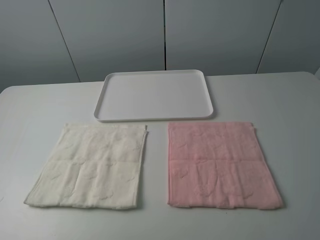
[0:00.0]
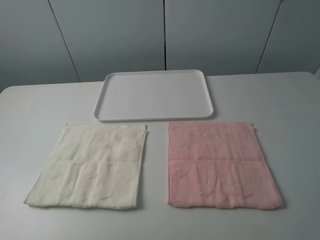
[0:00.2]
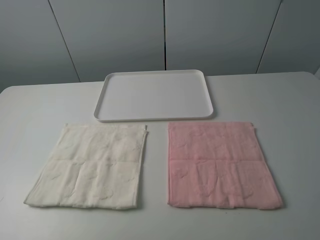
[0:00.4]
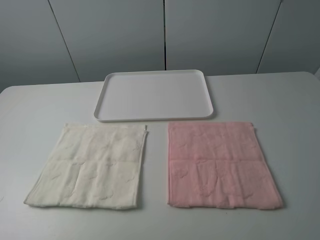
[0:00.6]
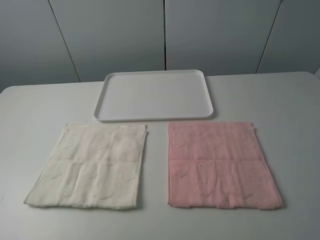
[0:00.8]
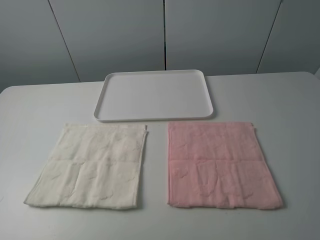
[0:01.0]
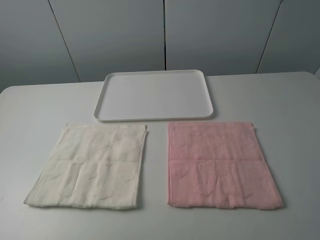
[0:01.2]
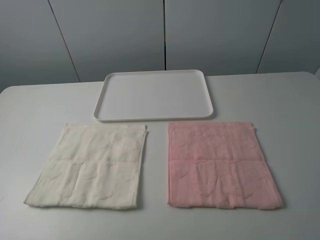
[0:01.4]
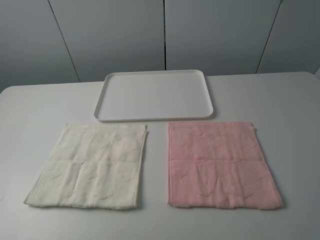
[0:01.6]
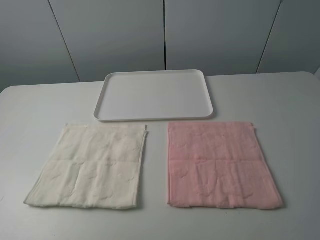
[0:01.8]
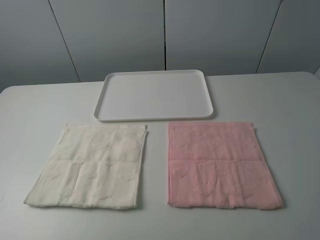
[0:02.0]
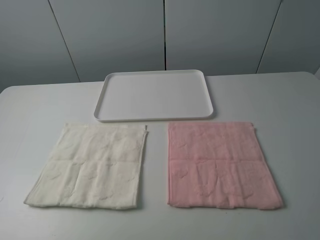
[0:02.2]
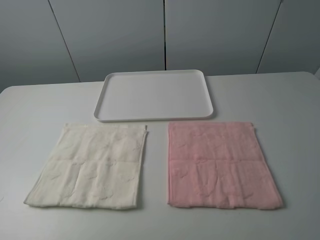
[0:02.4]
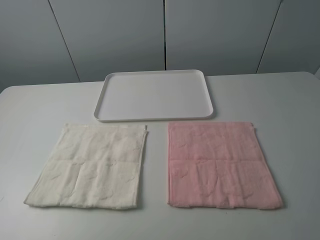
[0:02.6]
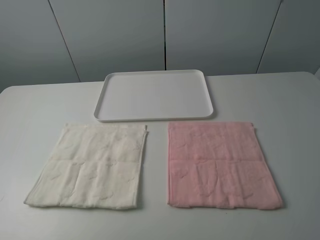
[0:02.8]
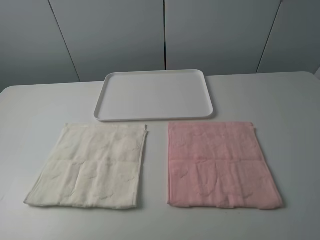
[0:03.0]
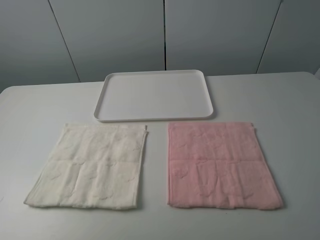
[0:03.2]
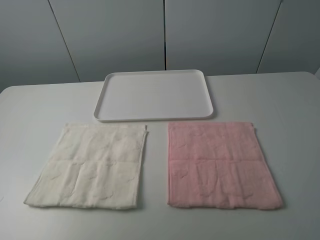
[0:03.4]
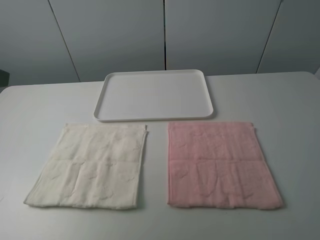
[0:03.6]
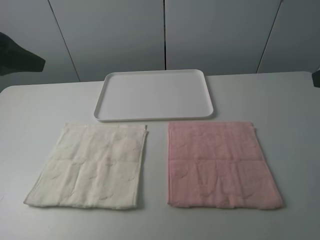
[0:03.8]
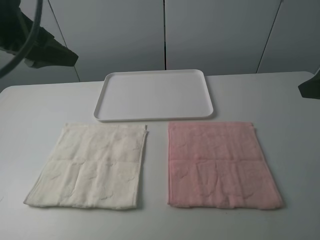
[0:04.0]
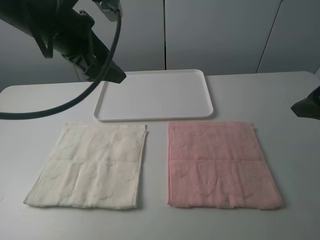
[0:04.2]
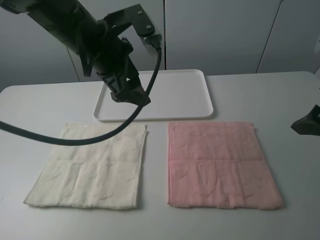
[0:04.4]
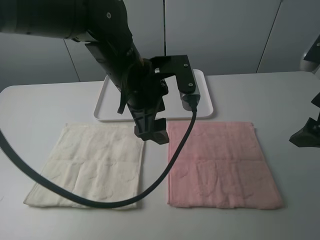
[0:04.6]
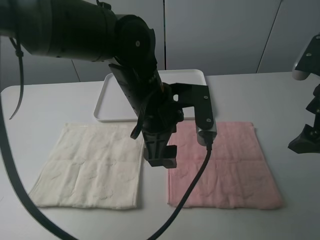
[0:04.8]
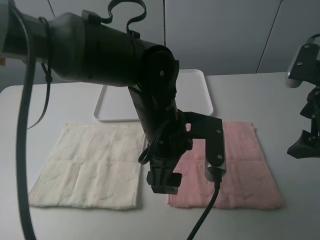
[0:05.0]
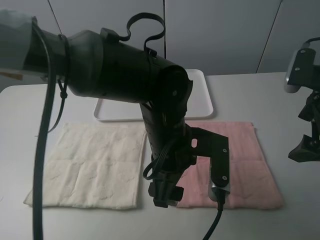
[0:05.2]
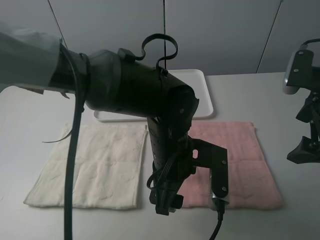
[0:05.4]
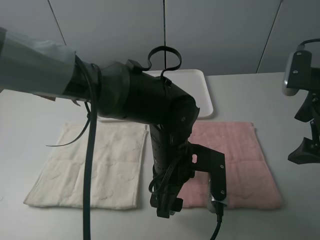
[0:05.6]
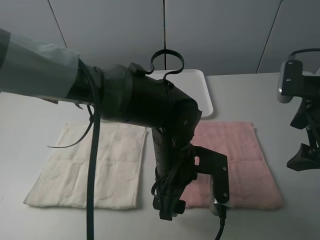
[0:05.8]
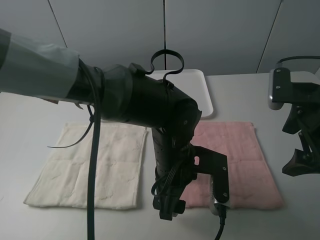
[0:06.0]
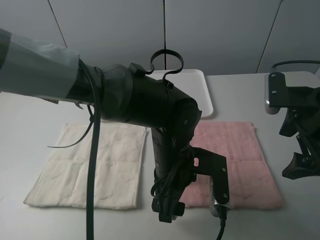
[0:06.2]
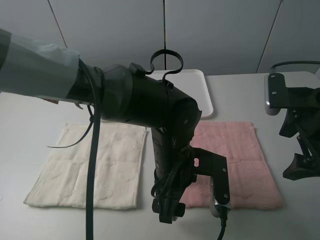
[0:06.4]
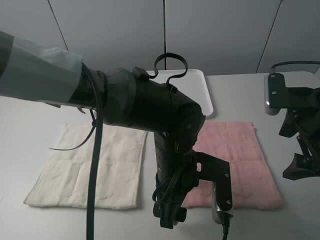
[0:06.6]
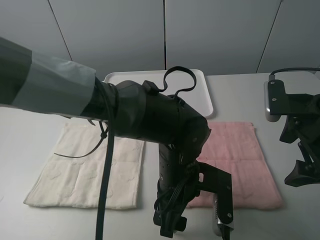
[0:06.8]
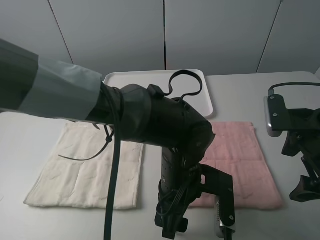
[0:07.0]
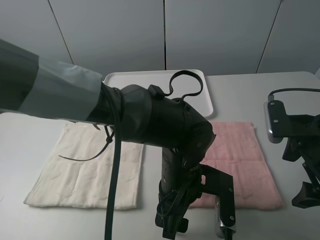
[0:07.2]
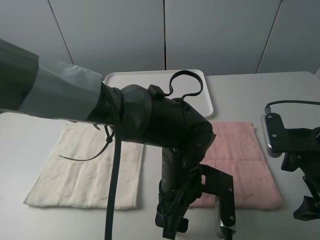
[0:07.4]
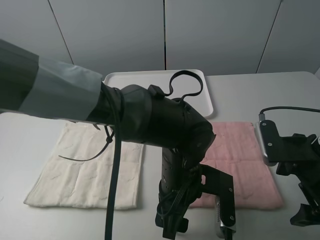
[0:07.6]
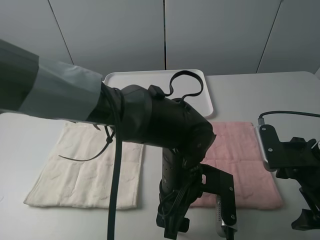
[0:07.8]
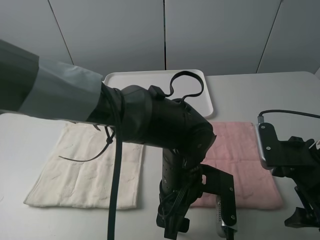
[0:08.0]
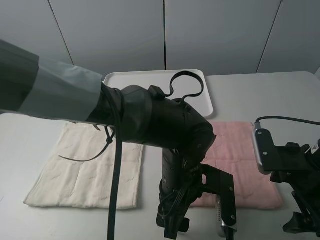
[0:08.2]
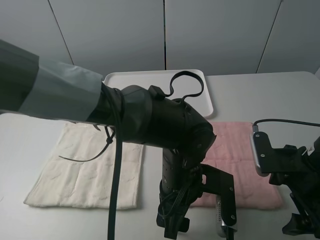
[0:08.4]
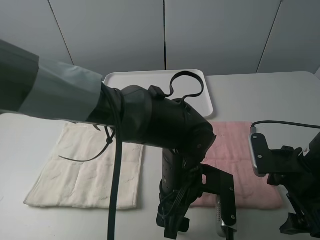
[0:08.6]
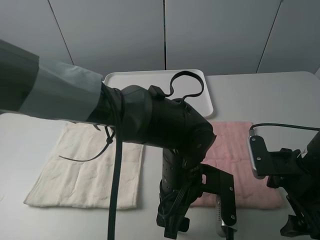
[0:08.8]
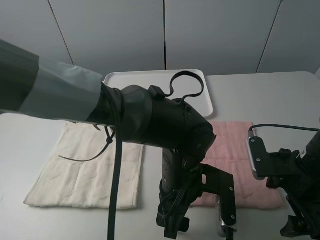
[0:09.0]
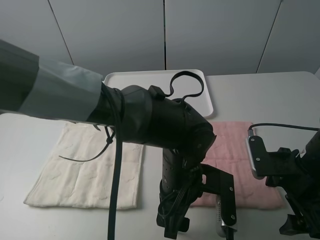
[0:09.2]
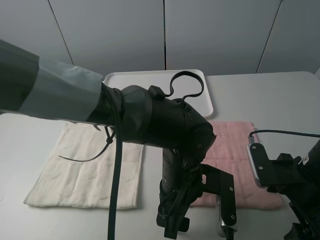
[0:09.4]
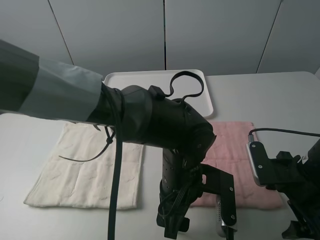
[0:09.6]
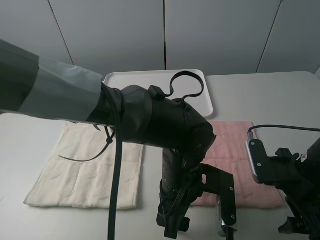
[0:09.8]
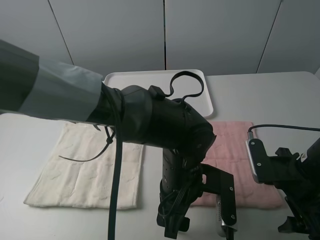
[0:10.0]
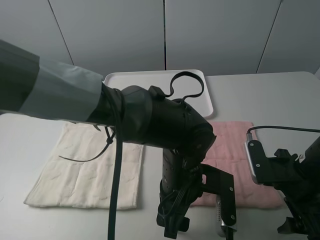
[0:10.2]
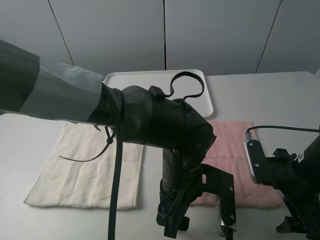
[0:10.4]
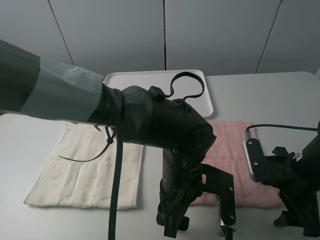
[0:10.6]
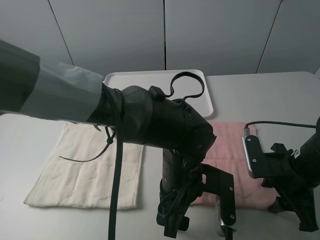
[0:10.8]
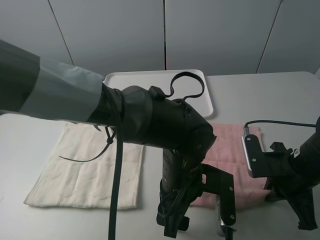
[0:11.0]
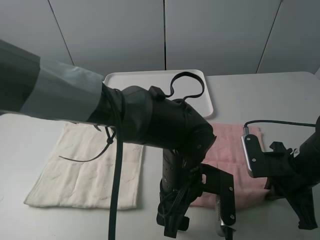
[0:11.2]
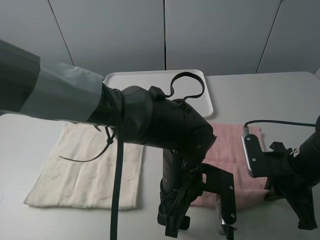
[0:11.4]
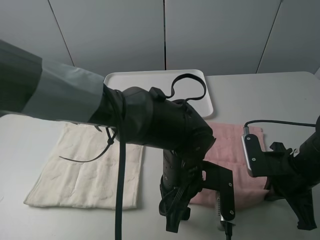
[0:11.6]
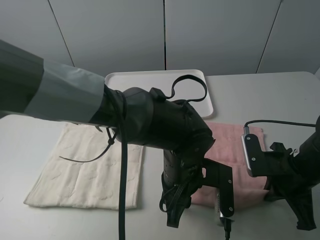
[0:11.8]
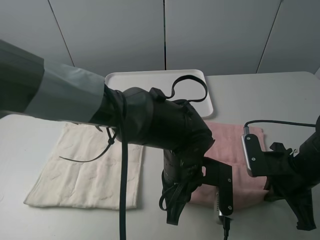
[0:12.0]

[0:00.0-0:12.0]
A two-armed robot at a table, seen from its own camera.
Task of the whole recording: fold one of the towels by two grippers and place it on the tray,then fold another towel by two grippers and place it on the folded towel.
Step, 0.0 to 12.0 s: Grasp the pink towel with the left gripper.
0.0 to 1.6 s: Both grippers stay about where they are.
3.0 to 4.4 s: The right gripper goes roughly 20 cm forward. Meanwhile the left gripper heads forward and to the right, covering approximately 35 cm.
4.4 to 6.0 s: The left gripper heads downward, to the right and backward, covering approximately 20 cm; the right gripper moves downward, approximately 5 cm.
6.0 to 7.6 s: The right gripper travels downward by about 5 cm.
7.6 to 10.4 s: There are only small adjustments of the grippers.
10.4 to 12.0 s: The right gripper closes its fingers; the left gripper closes.

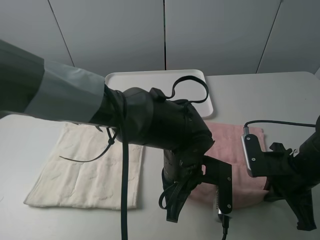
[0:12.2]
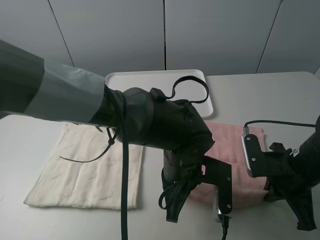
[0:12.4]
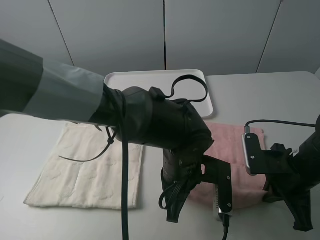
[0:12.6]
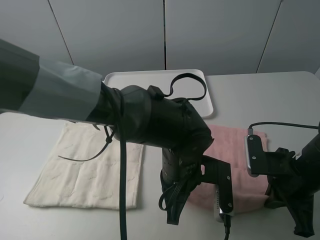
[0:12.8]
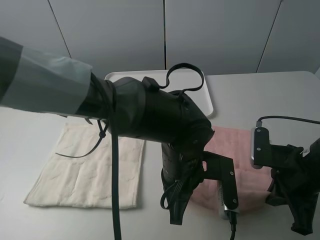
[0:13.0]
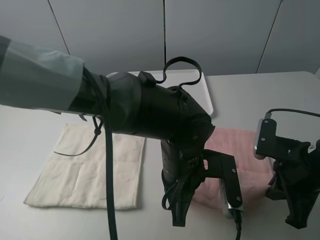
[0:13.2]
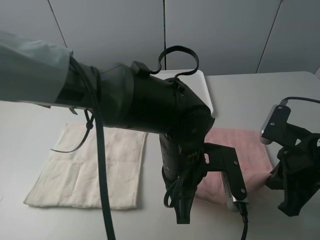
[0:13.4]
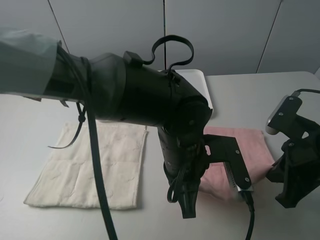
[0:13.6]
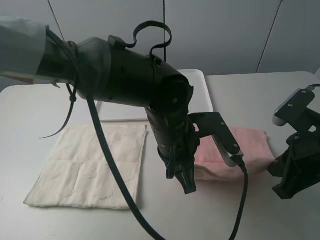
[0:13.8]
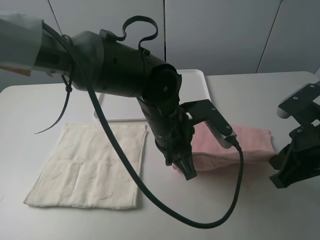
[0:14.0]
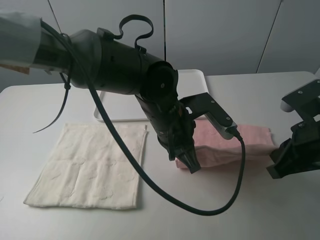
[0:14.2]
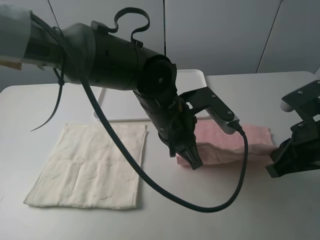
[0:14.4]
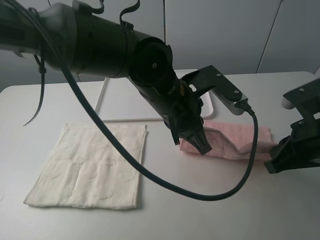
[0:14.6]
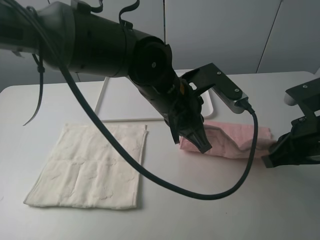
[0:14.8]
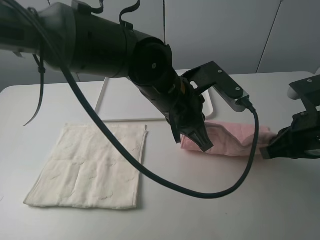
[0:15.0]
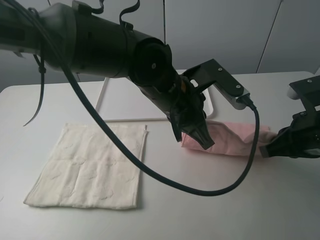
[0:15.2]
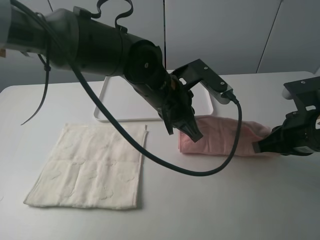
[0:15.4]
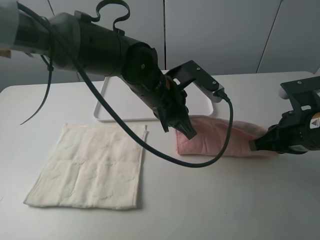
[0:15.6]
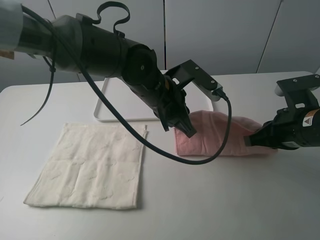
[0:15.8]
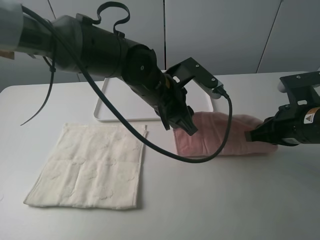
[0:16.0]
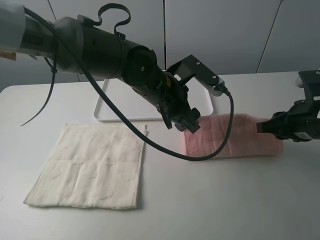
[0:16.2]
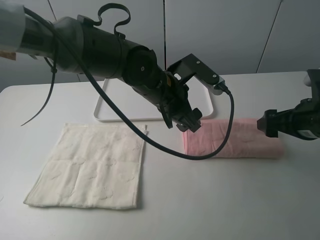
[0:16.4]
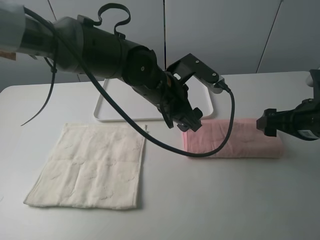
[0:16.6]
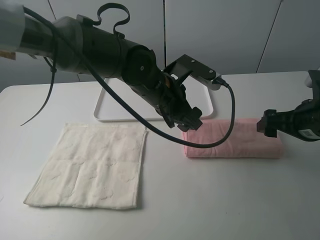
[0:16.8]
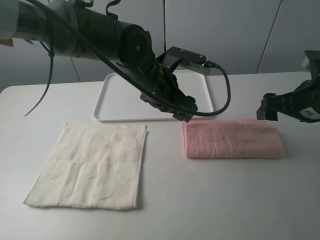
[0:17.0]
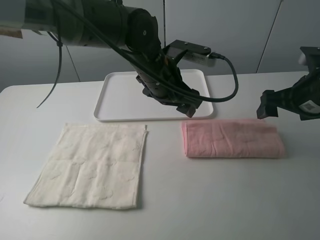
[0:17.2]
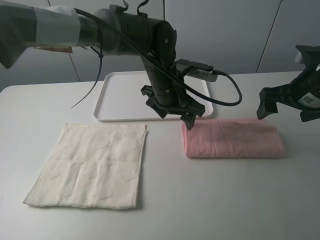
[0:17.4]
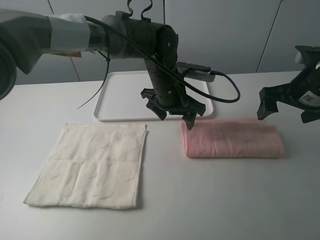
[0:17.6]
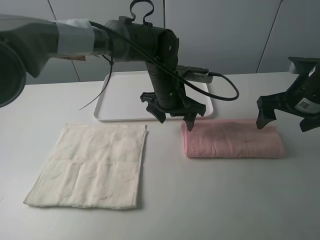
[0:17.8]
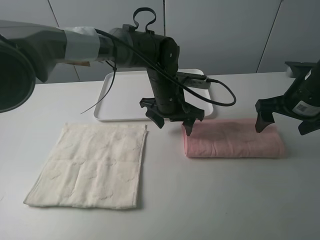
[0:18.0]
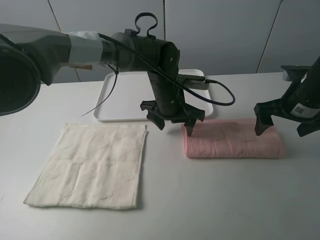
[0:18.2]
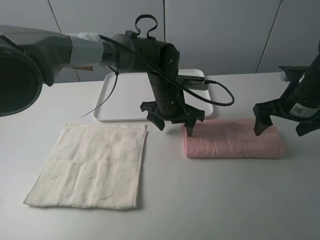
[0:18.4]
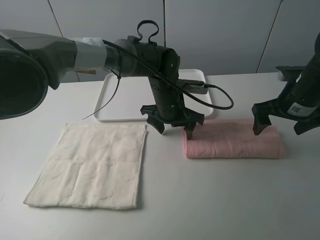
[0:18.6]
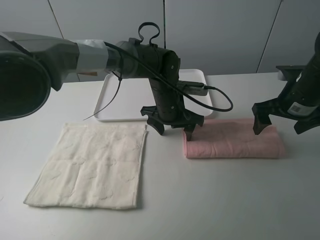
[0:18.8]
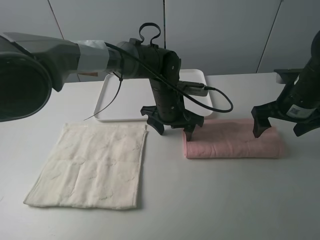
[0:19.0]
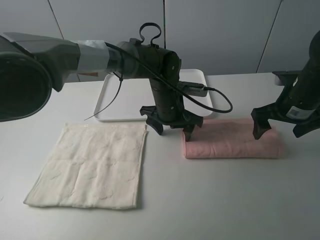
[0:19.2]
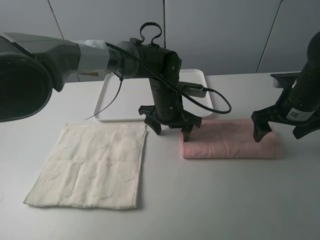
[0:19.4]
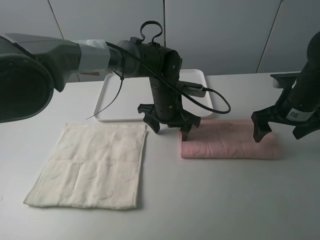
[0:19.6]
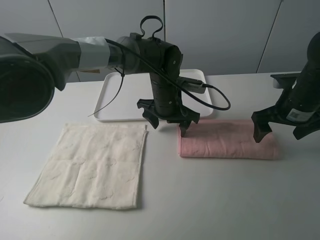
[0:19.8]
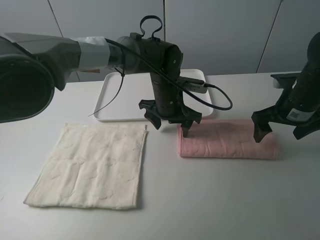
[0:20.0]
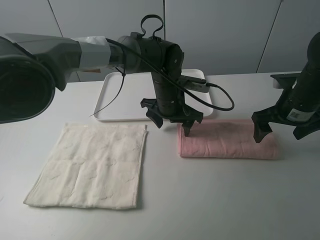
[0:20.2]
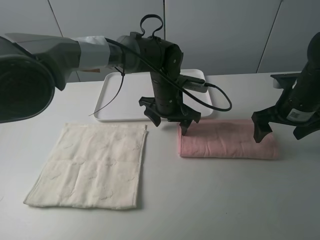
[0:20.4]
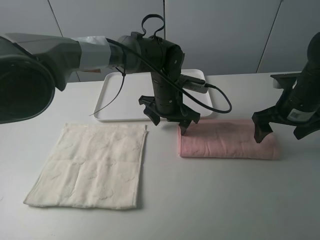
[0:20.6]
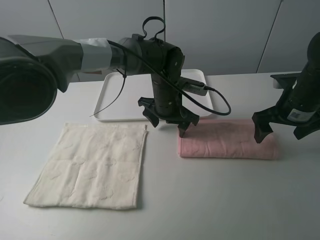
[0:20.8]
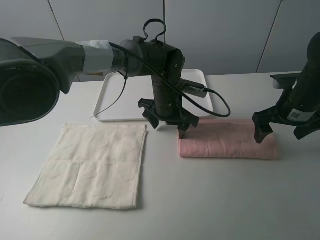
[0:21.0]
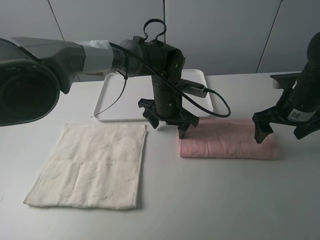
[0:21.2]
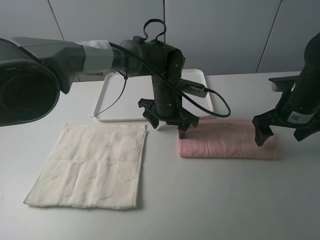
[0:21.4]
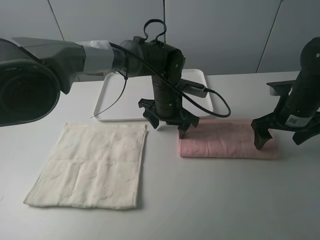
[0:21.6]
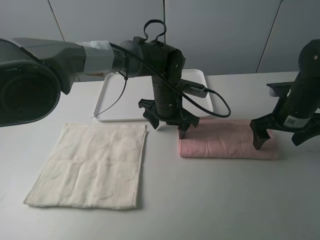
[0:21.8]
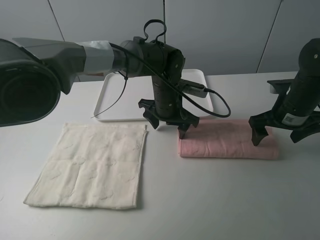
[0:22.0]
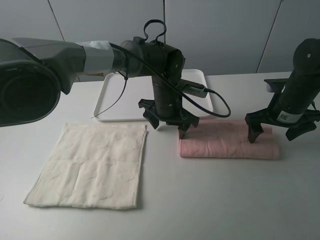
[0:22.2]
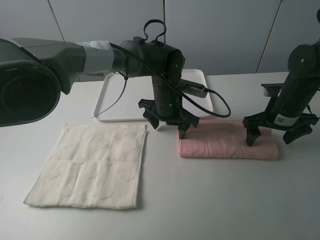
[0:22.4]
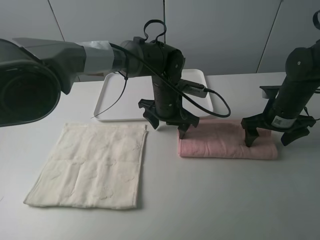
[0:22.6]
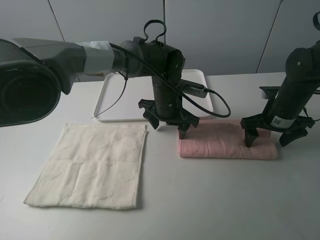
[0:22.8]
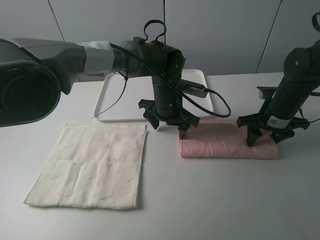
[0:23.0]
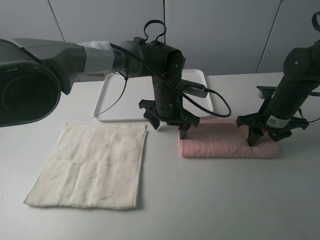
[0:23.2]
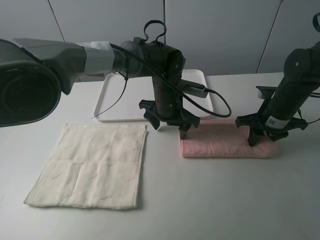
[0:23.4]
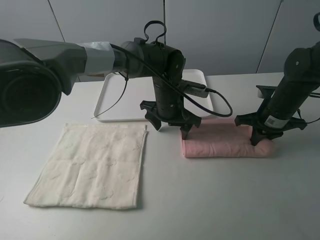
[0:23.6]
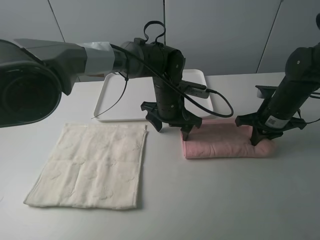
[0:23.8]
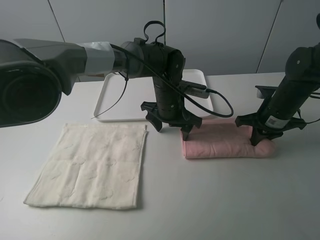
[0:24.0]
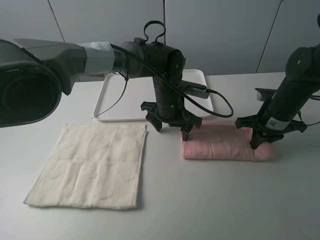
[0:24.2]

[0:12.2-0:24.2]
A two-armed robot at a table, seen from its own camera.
Task of the whole recording: fold one of the towels by two grippers and place it on the tray,then fold another towel by two grippers and place it on the folded towel.
Step, 12.2 to 16.4 s: Fold the pink towel upwards with the left gripper.
Step, 16.8 to 19.0 s: Press the pink towel with the left gripper.
Step, 19.2 to 23.6 s: Grasp the pink towel with the right gripper.
12.2 to 13.8 s: The two grippers go some 5 cm upward.
13.8 to 15.2 s: The left gripper ends up approximately 5 cm from where it was.
15.2 to 16.6 s: The right gripper changes place by about 5 cm, and opens its fingers; the left gripper shifts by some 5 cm, and opens up.
16.6 to 18.2 s: The left gripper heads forward and downward, covering about 10 cm; the right gripper moves forward, approximately 5 cm.
18.2 to 19.8 s: There are only small adjustments of the grippers.
19.8 to 21.2 s: Both grippers stay about where they are.
21.2 to 22.6 s: The right gripper moves some 5 cm.
22.6 to 24.2 s: The right gripper closes its fingers.
